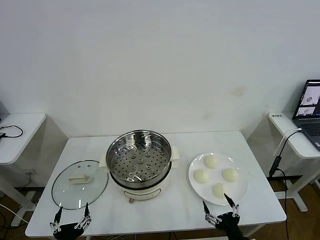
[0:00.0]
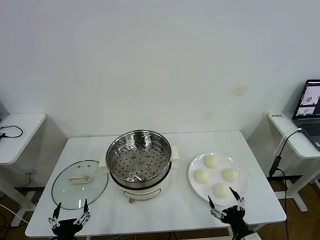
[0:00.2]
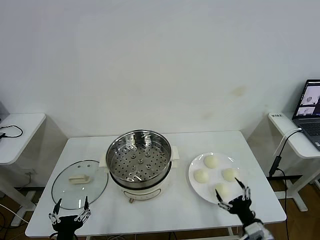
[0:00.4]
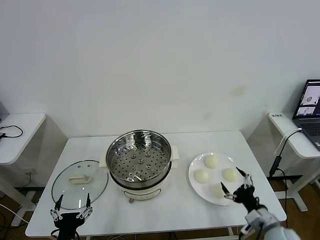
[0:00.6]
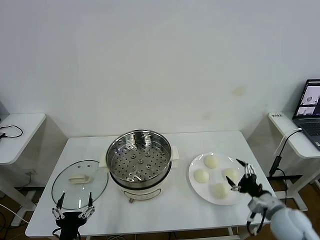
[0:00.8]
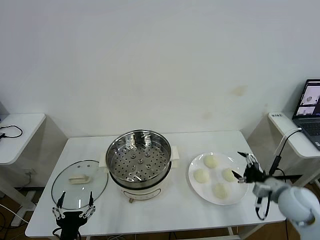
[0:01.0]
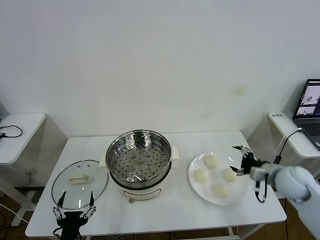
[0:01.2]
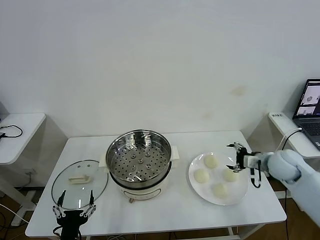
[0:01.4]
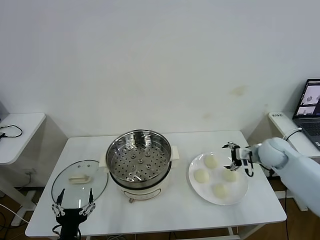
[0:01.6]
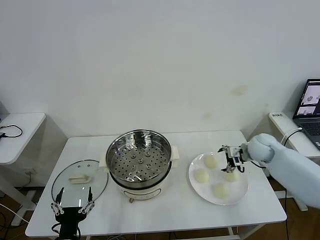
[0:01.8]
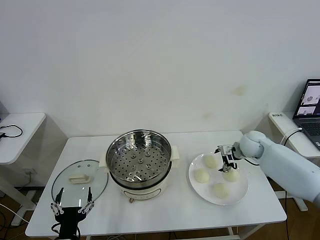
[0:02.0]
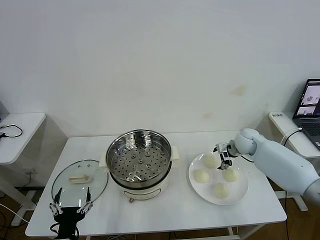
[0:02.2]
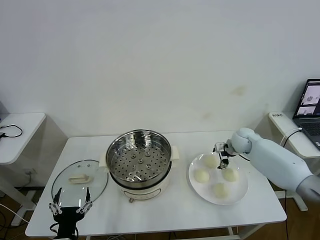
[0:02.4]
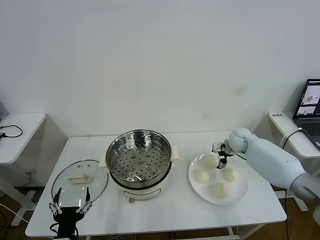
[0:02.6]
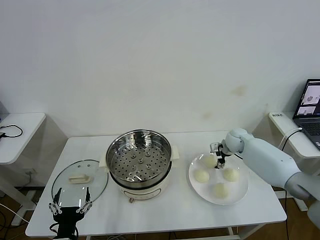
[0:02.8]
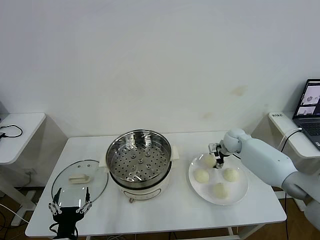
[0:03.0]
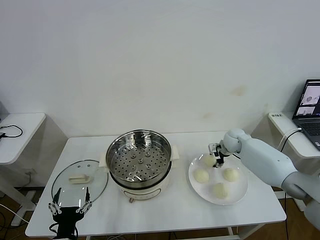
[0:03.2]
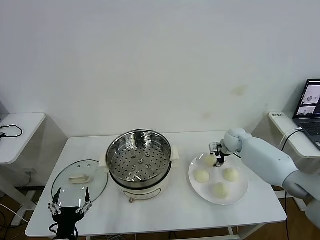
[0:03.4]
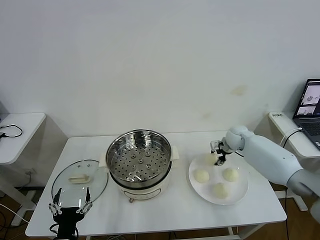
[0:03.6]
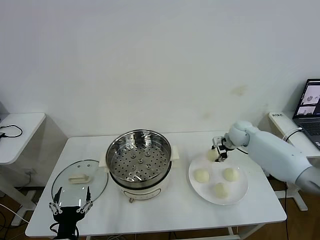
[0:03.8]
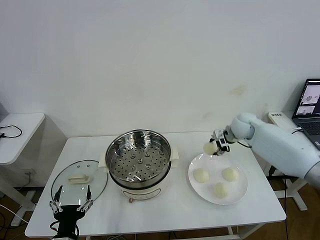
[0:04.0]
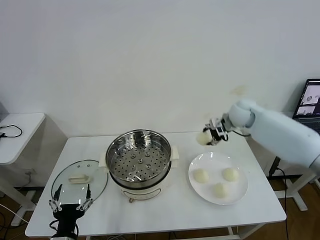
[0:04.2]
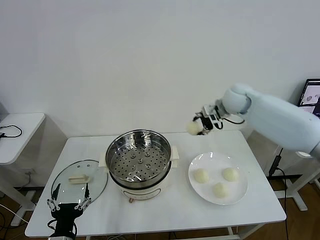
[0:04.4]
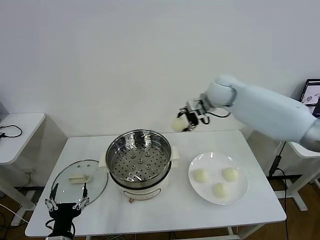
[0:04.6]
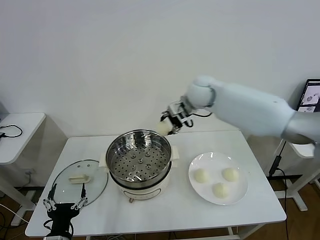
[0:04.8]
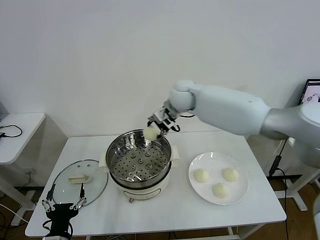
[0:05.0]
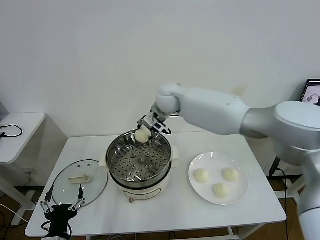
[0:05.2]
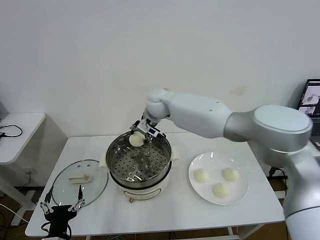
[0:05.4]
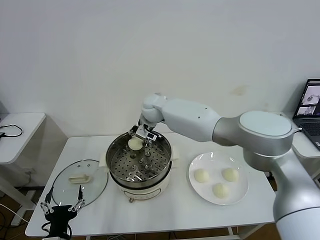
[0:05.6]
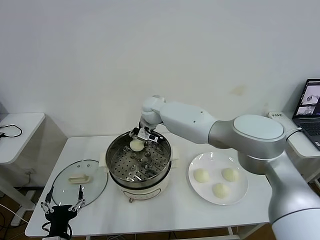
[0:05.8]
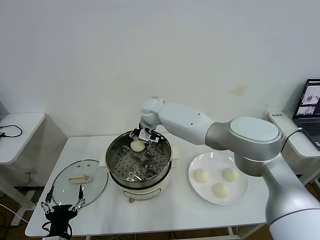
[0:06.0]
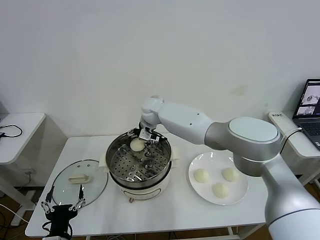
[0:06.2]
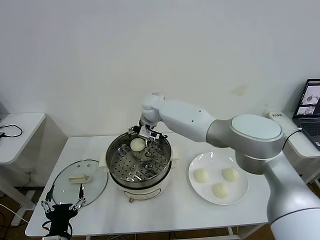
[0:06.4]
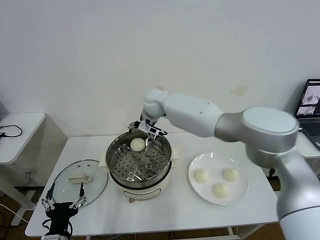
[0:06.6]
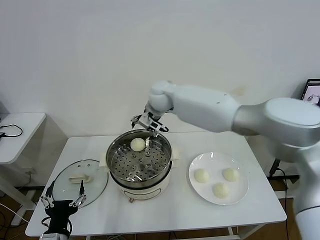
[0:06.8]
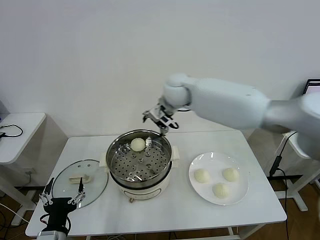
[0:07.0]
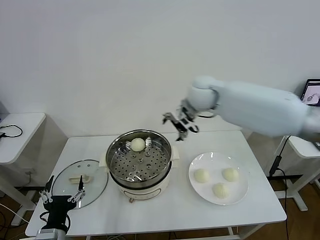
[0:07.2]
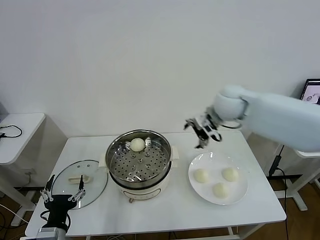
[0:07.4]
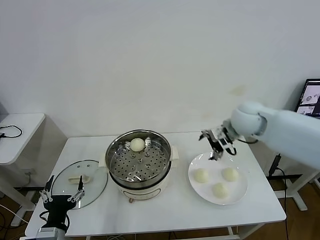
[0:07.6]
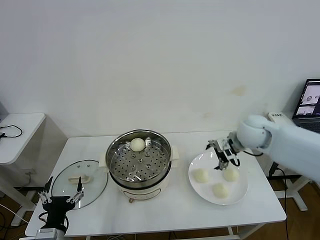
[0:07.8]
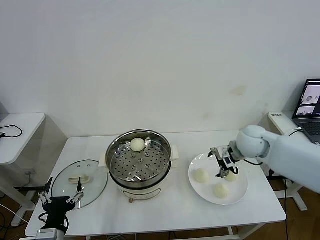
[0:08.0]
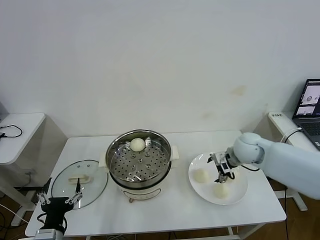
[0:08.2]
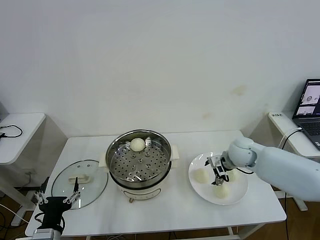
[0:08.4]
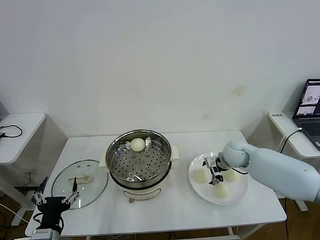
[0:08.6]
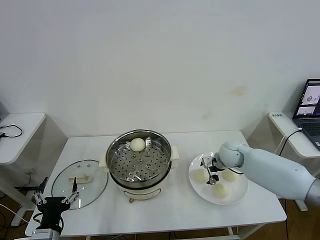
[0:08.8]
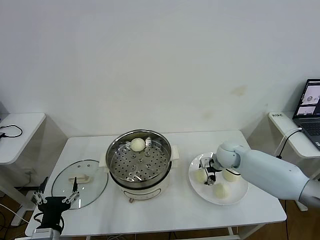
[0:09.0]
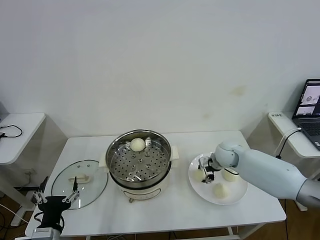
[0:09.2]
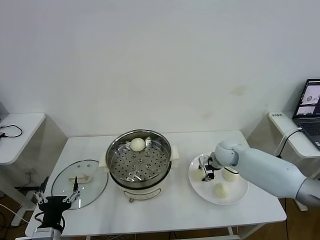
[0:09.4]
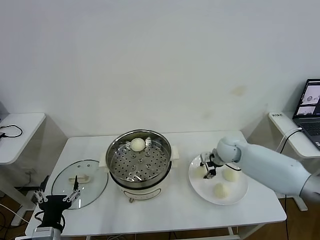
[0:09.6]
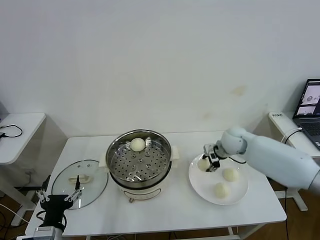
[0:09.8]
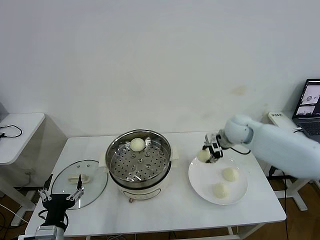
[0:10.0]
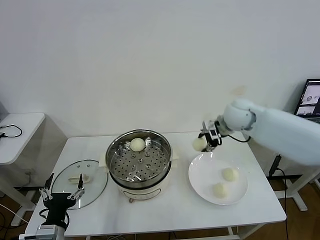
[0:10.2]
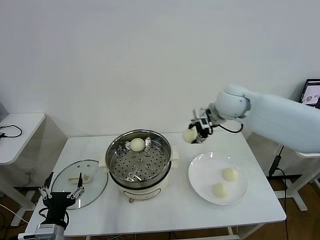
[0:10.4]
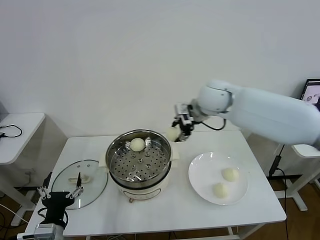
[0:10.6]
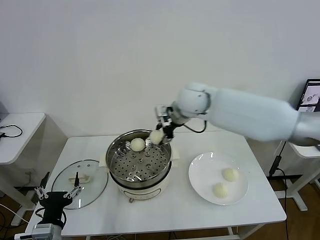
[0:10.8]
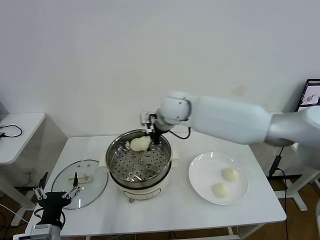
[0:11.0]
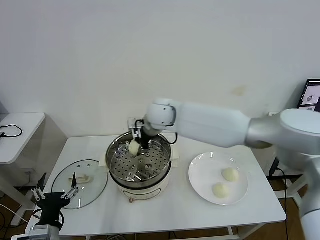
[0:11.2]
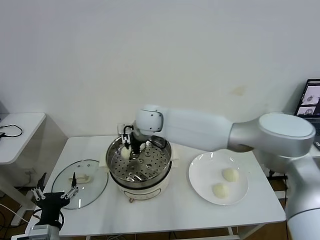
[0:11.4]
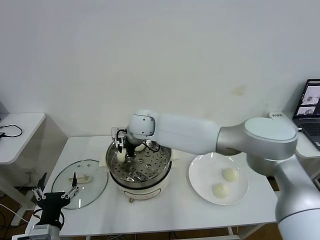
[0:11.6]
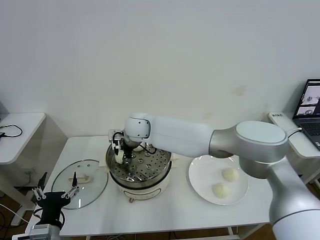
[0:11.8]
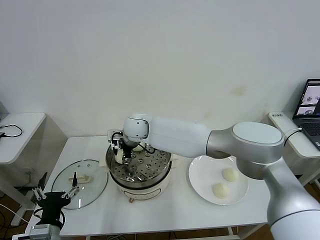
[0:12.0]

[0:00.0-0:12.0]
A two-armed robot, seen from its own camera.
Task of the whole recording: take steamed baozi put them in steamer then cover it.
Step, 0:00.0 to 0:03.0: Grasp the baozi in the plate with right gripper.
Step, 0:03.4 to 0:06.2: Place the baozi on the steamer with right gripper.
Step, 0:06.4 to 0:09.2: Grasp the baozi in the plate with right gripper.
0:01.6 to 0:03.0: The right gripper moves forward, to the left and downward, approximately 10 cm, and closes up.
0:03.0 to 0:04.4: The right gripper goes about 25 cm upward and to the left.
0:04.4 to 0:06.0: The right gripper goes approximately 25 cm to the left and downward, and opens up.
0:06.0 to 0:07.6: The right gripper is displaced to the right and backward by some 35 cm, and opens its fingers.
0:07.6 to 0:09.0: The right gripper goes about 15 cm downward.
0:09.0 to 0:10.4: The right gripper goes roughly 25 cm upward, and closes up.
0:10.4 to 0:12.0: The right gripper shifts roughly 30 cm to the left and downward, and opens its fingers.

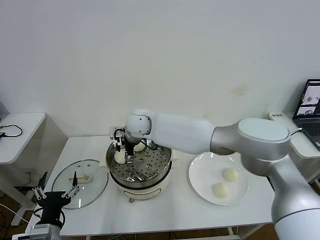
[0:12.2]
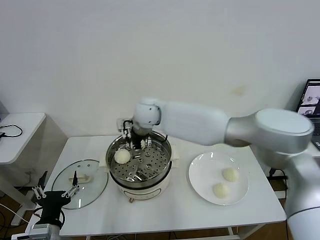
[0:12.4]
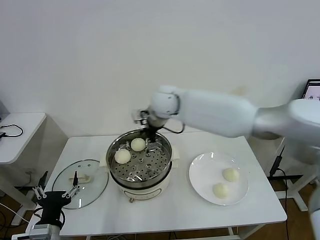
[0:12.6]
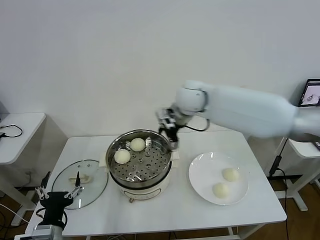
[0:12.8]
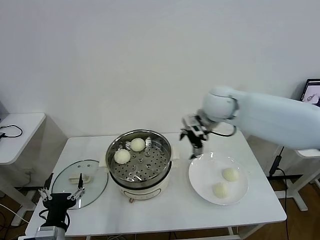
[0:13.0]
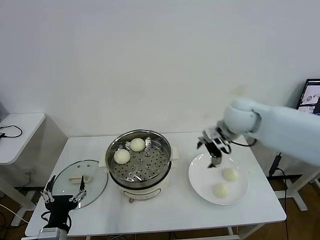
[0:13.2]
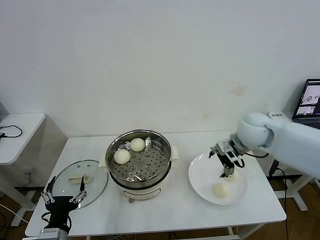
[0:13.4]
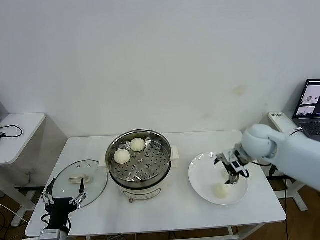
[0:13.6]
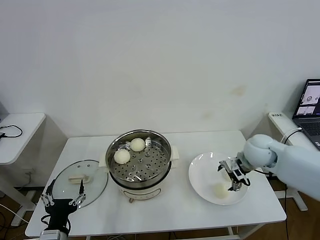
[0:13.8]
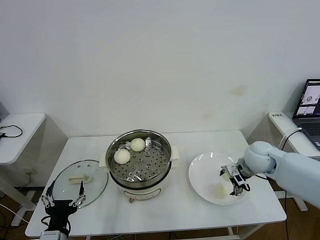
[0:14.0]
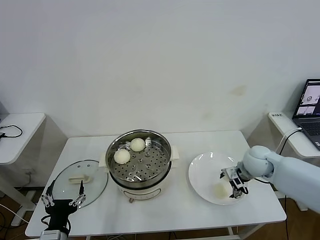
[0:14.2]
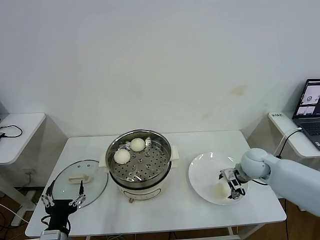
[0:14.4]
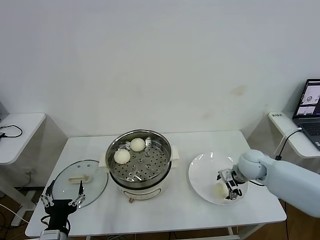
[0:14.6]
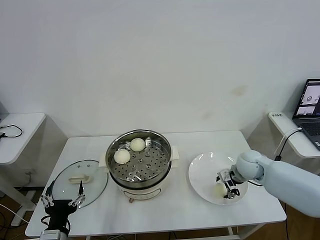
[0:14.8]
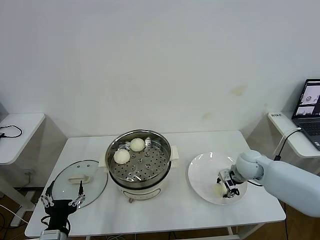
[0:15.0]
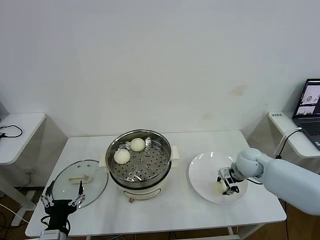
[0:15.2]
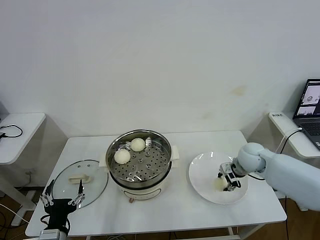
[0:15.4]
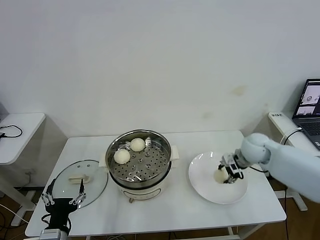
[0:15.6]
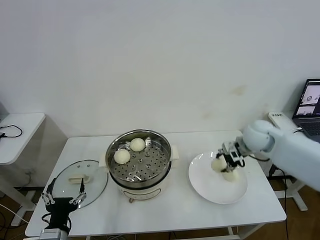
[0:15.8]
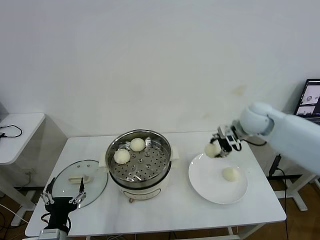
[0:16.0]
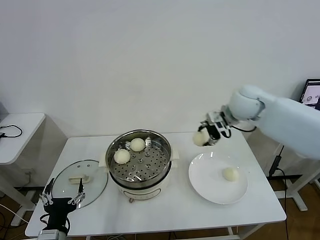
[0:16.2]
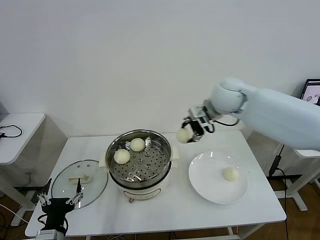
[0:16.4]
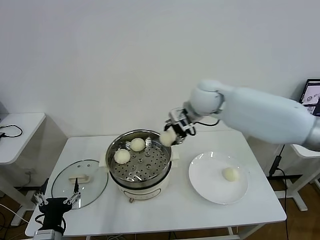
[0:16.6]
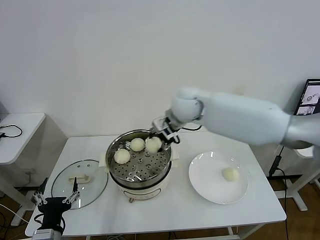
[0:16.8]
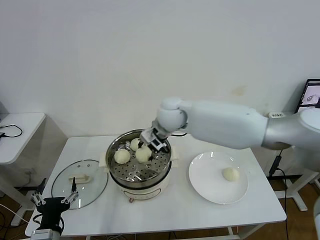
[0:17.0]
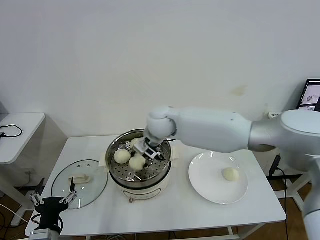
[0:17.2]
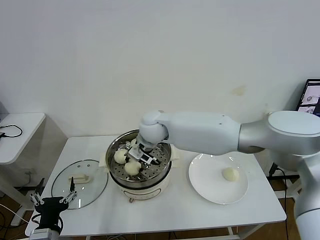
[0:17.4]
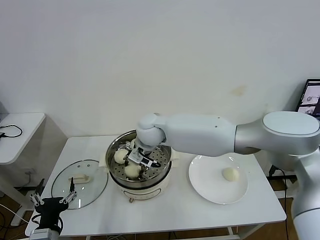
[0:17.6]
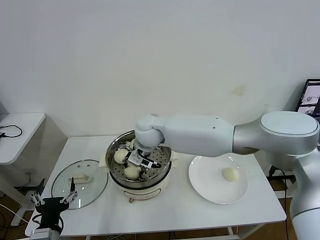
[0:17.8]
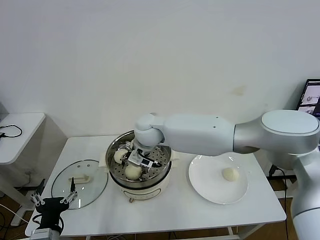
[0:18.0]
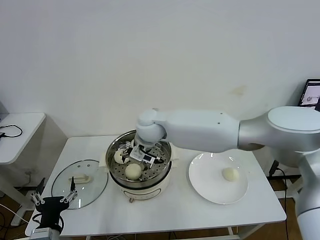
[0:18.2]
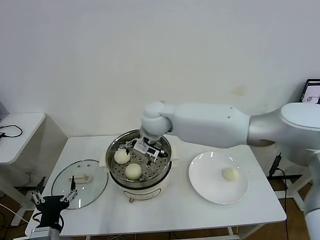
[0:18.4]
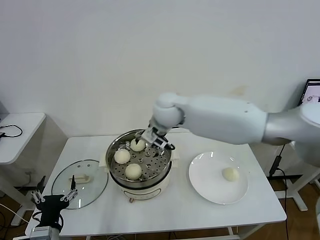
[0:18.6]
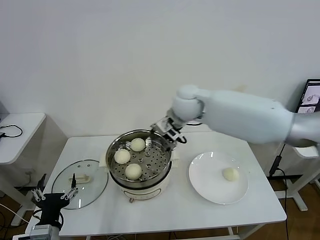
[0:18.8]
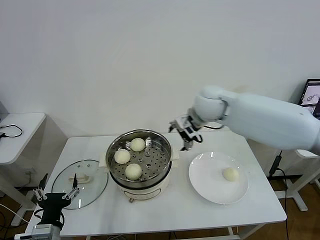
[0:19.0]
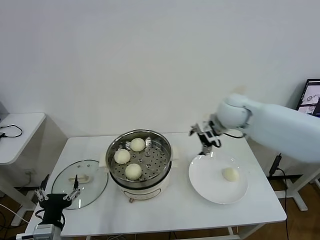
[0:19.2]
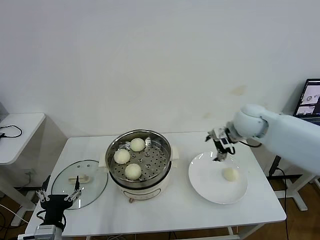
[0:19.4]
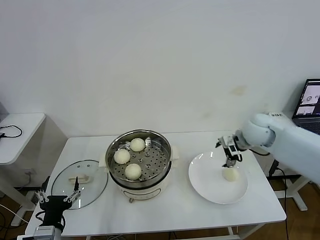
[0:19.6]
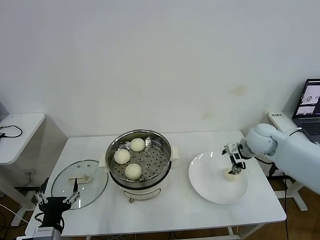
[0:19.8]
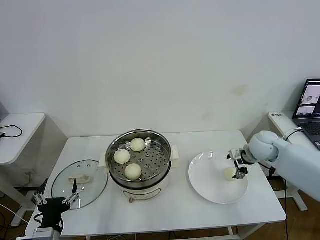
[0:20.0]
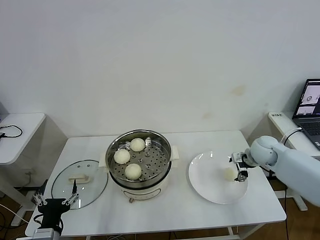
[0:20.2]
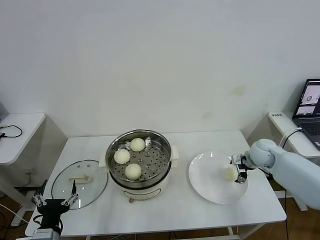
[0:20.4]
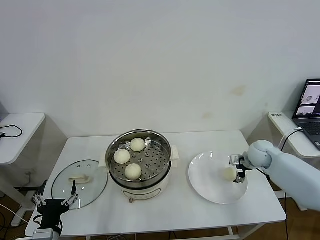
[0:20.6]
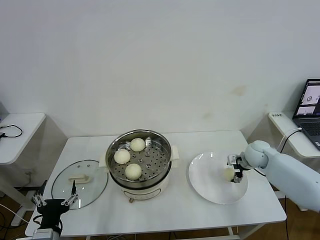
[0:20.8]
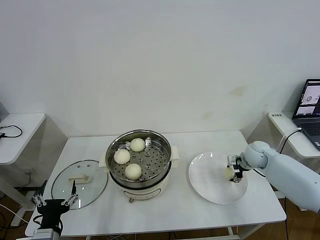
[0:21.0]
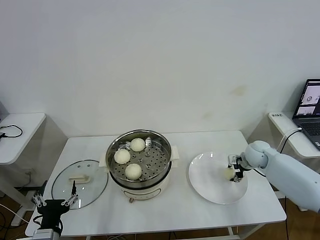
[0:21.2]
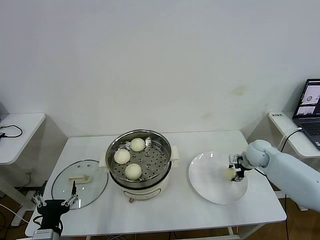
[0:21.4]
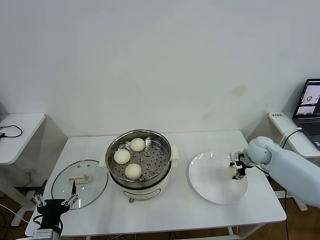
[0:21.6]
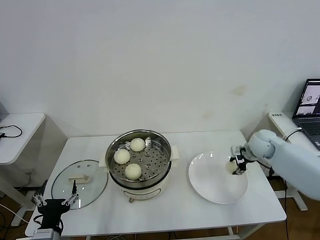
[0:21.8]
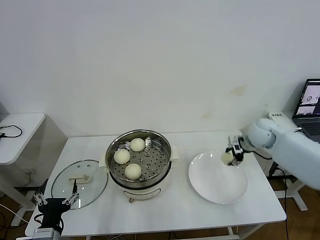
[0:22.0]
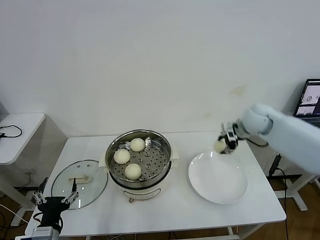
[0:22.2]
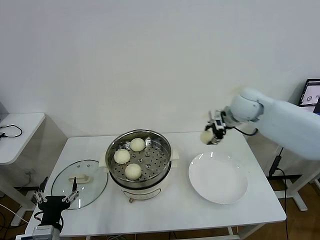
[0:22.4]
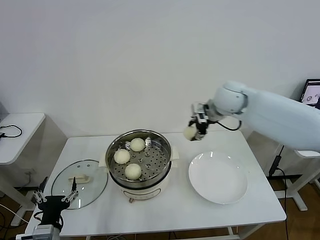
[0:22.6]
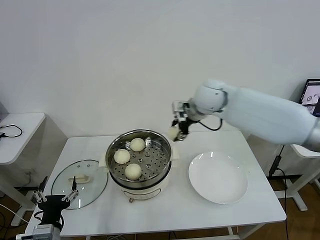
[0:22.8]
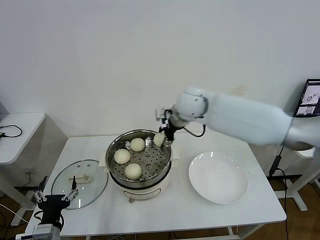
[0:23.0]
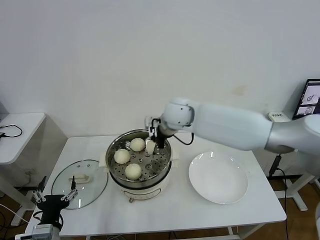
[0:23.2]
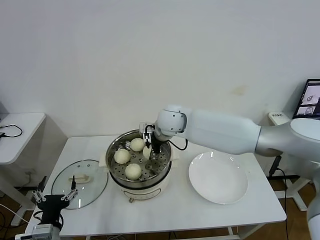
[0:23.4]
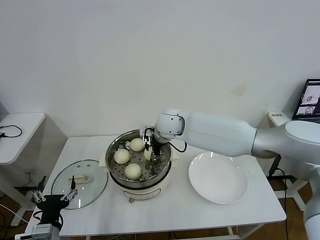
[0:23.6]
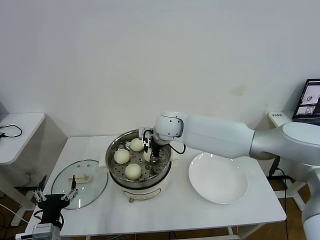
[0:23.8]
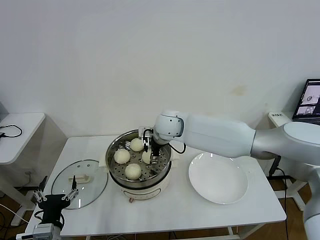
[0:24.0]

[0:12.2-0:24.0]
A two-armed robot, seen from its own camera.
Task of the whole recording: take steamed baozi put them in steamer then cover it.
Step, 0:12.4 to 0:15.0: Grasp the baozi in the plate with right gripper.
Step, 0:15.4 to 0:18.0: Place the baozi on the steamer with right gripper.
Step, 0:18.2 to 0:21.2: Grasp the baozi in the plate with right gripper.
0:12.2 to 0:13.6: The right gripper moves to the right, about 35 cm.
0:13.6 to 0:15.2: The right gripper travels downward by some 10 cm, and closes its fingers.
0:15.2 to 0:16.6: The right gripper goes roughly 30 cm upward and to the left.
0:16.6 to 0:18.2: The right gripper travels to the left and downward by roughly 15 cm, and opens.
0:18.2 to 0:19.6: The right gripper moves to the right, about 35 cm.
0:19.6 to 0:21.0: The right gripper moves downward and to the right, some 15 cm, and closes.
0:21.0 to 0:22.6: The right gripper is displaced upward and to the left by approximately 30 cm.
0:22.6 to 0:24.0: The right gripper is displaced to the left and downward by some 20 cm, and opens.
